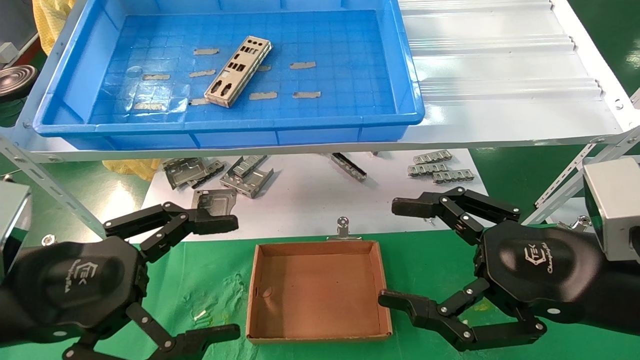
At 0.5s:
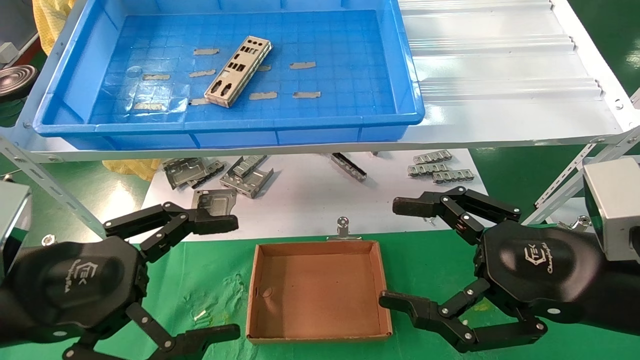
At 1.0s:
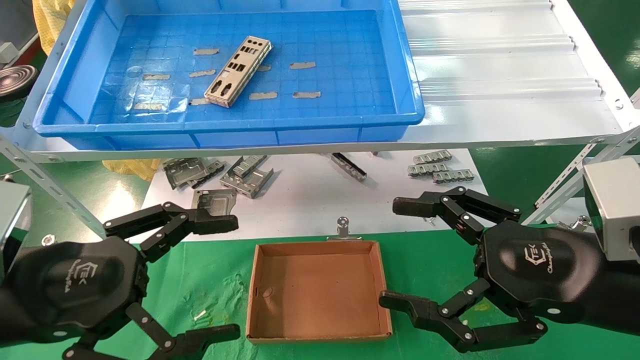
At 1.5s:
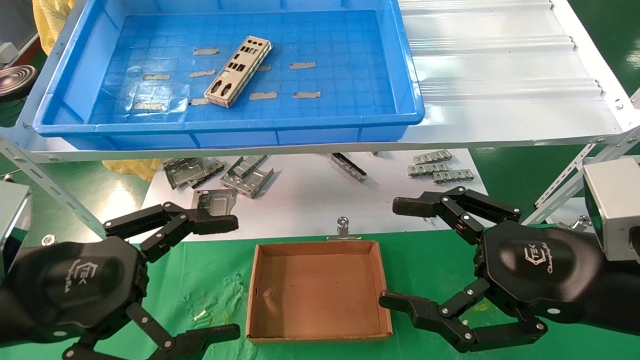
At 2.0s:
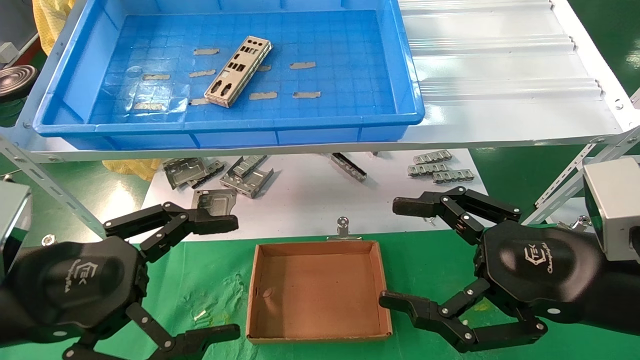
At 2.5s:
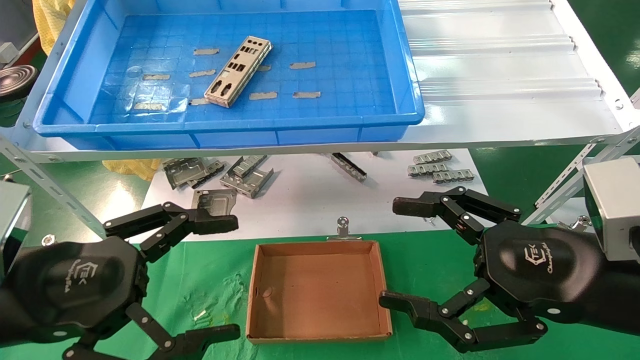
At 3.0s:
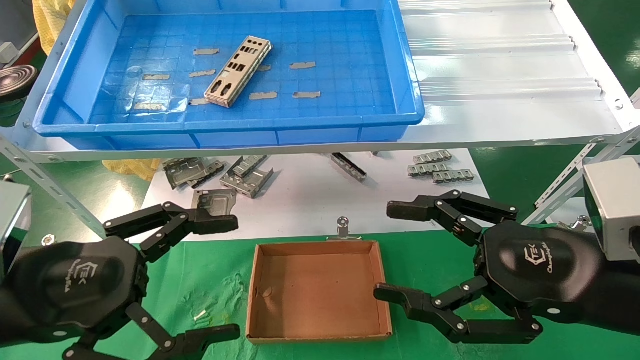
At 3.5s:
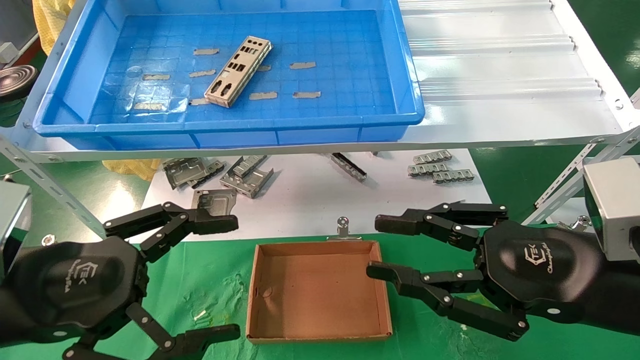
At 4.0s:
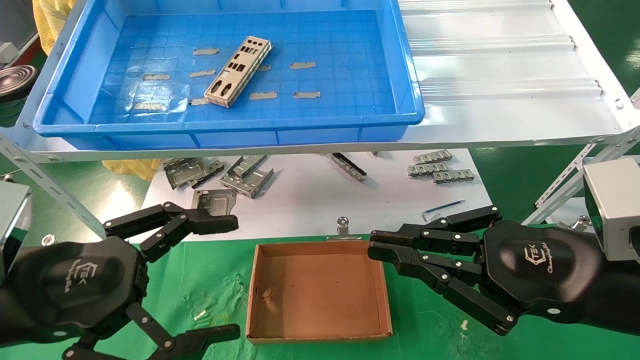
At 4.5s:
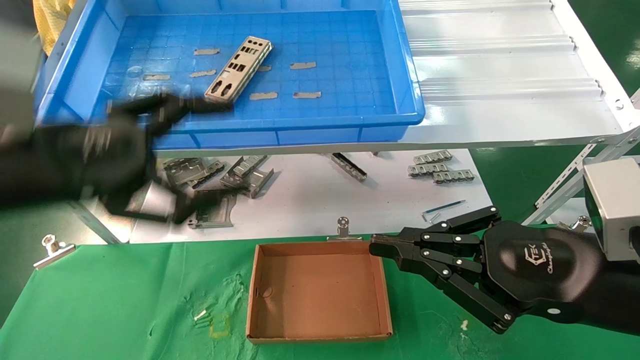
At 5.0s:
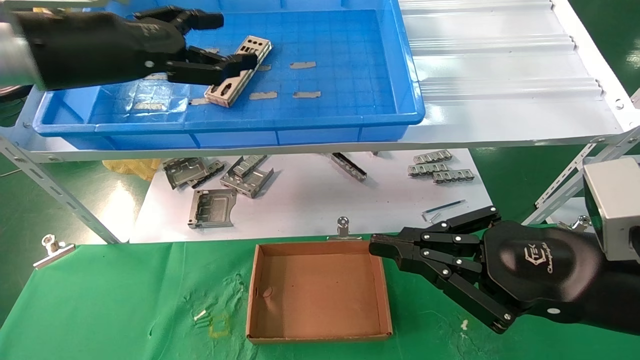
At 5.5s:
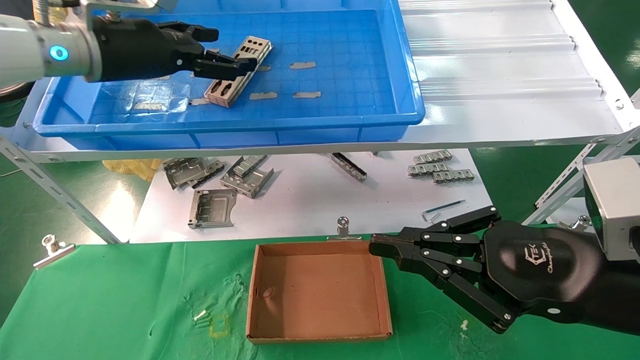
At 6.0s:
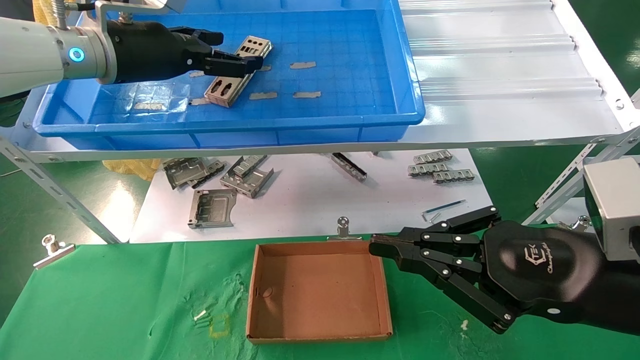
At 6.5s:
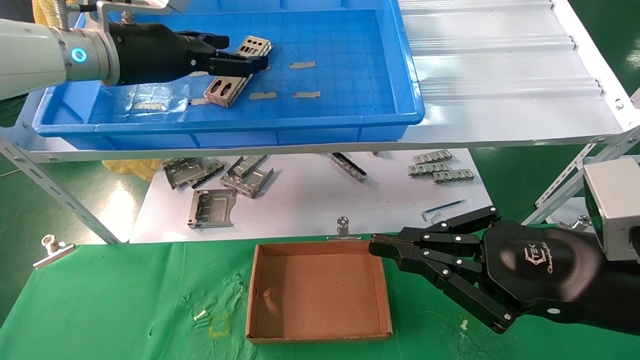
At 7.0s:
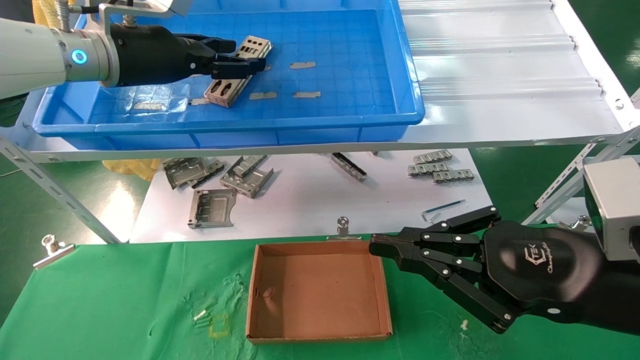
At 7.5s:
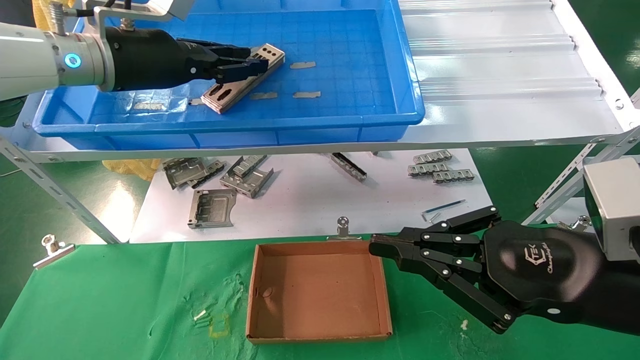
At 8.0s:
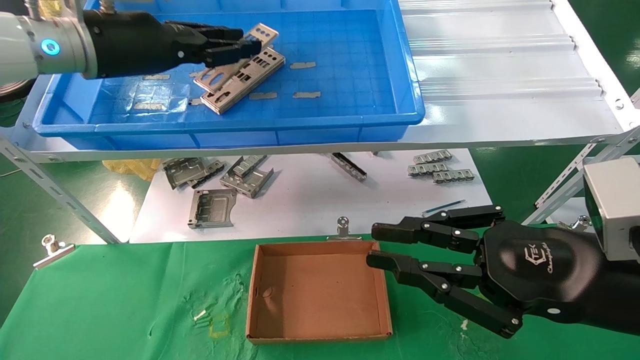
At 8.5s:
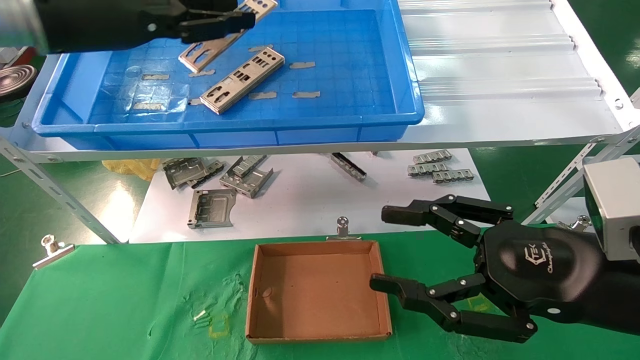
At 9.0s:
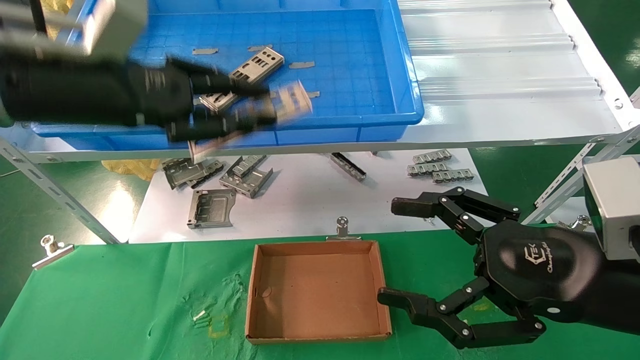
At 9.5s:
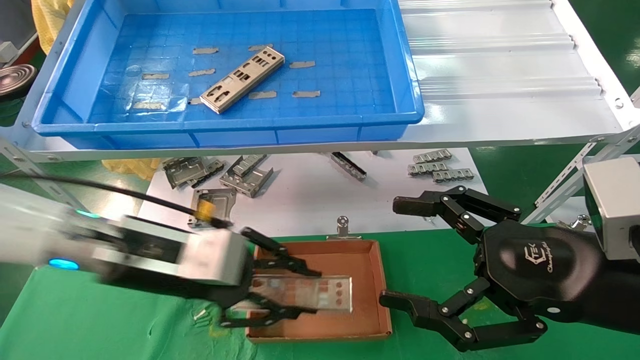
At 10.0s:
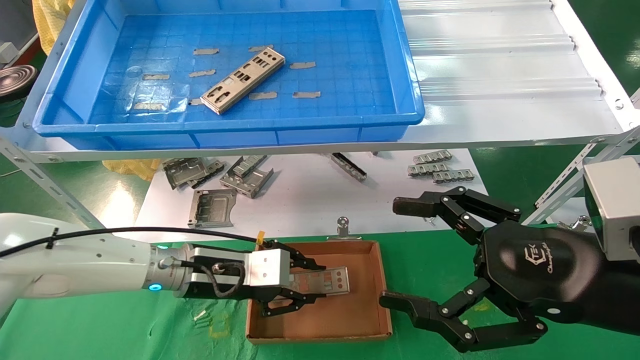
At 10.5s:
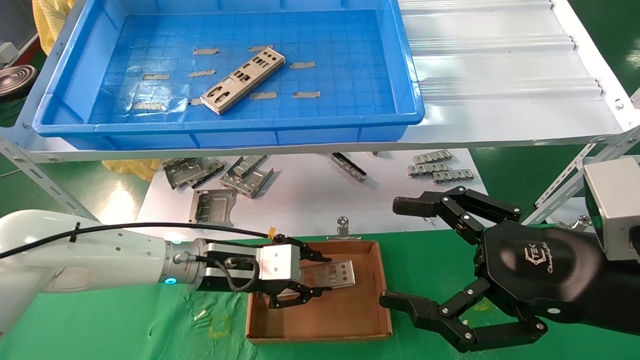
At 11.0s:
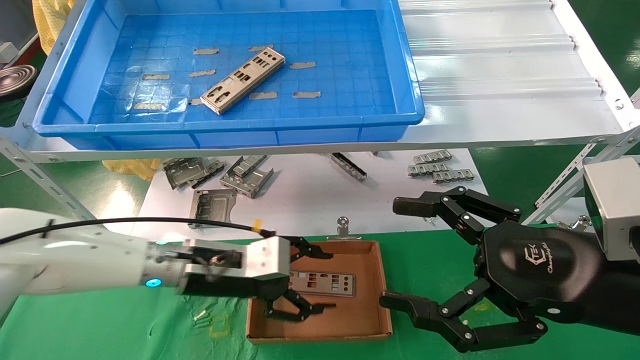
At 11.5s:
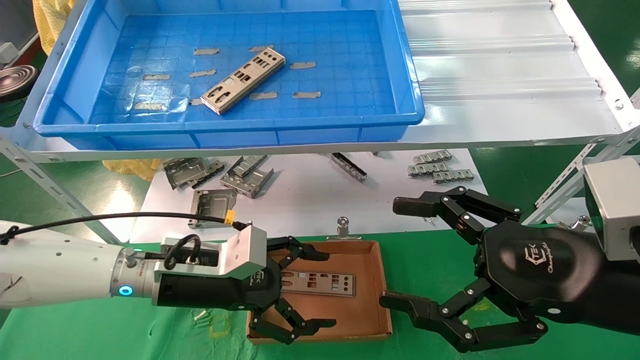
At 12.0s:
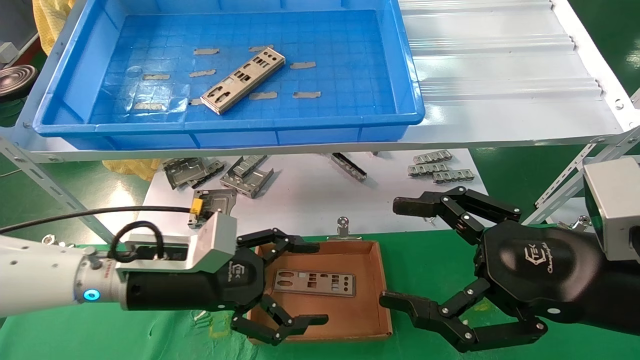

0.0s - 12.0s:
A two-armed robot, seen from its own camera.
Task of the whole recording: pick up the parts on the tray and put them in the cardboard box.
Step, 4.5s - 7.0s: Pick up the IO bracket from the container box.
Step, 7.5s - 10.5s: Place the IO bracket into the ingredient slot.
0.0s - 2.0s: Both grippers stay put.
2.0s - 4.0s: The right gripper closes.
4.0s - 6.0s: The left gripper is displaced forward and upward by some 30 cm.
6.0s - 8.0s: The left gripper closes up.
8.0s - 10.0s: The right gripper opens; the left gripper shifts some 30 cm downward.
10.0s - 12.0s: The left gripper shifts approximately 5 cm backward, and opens.

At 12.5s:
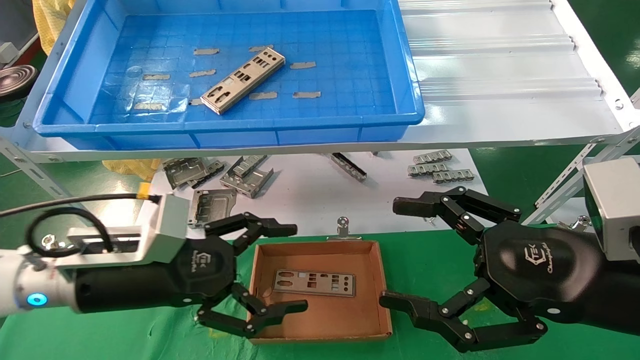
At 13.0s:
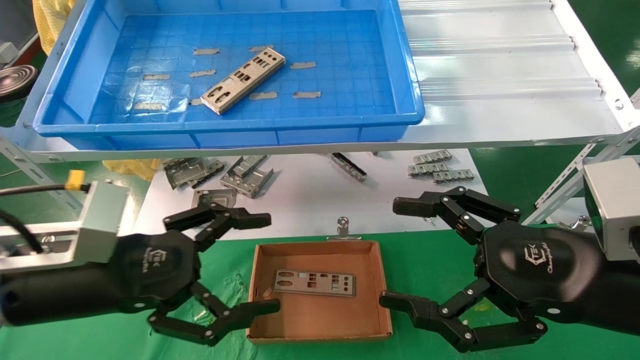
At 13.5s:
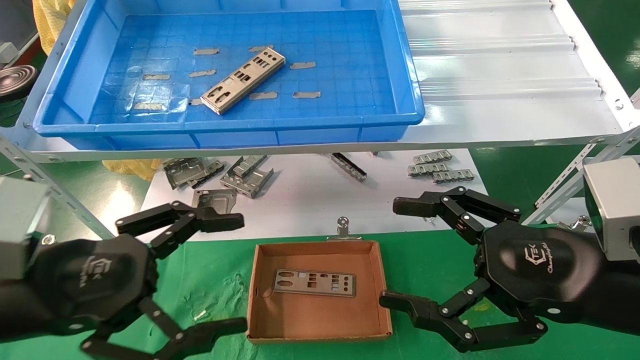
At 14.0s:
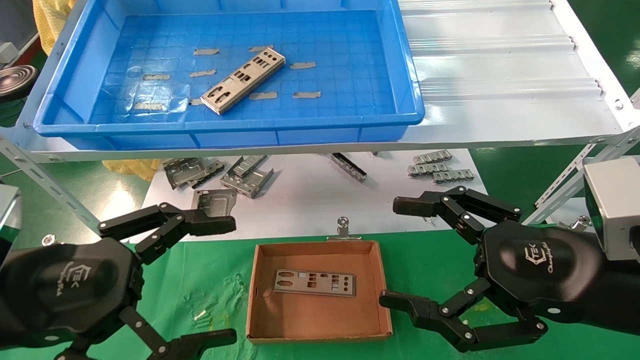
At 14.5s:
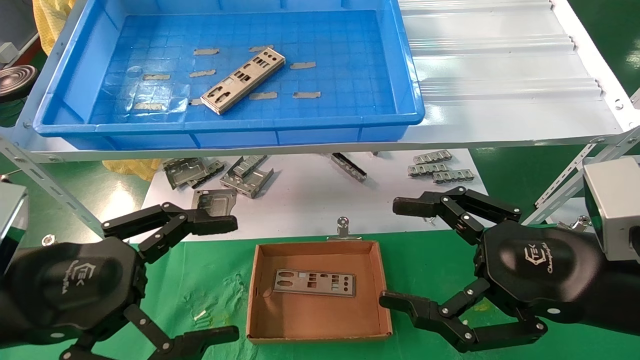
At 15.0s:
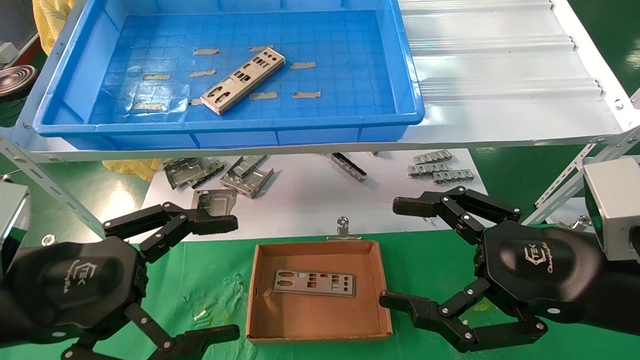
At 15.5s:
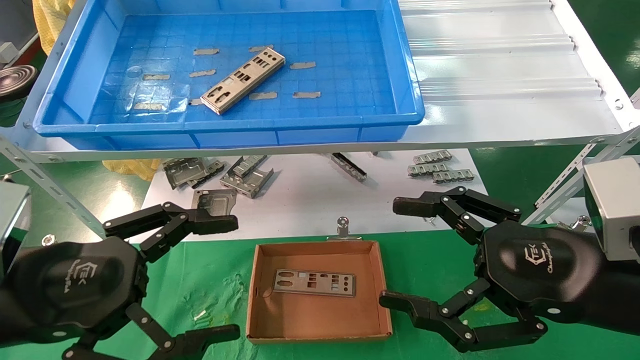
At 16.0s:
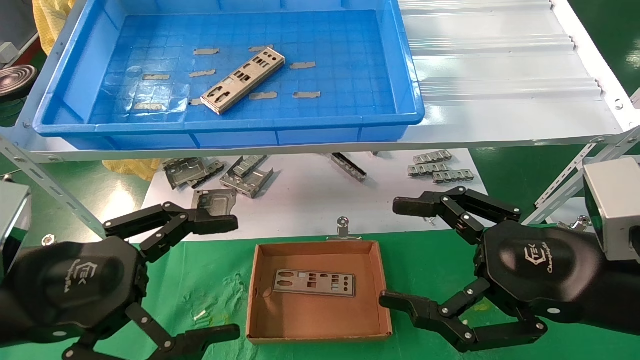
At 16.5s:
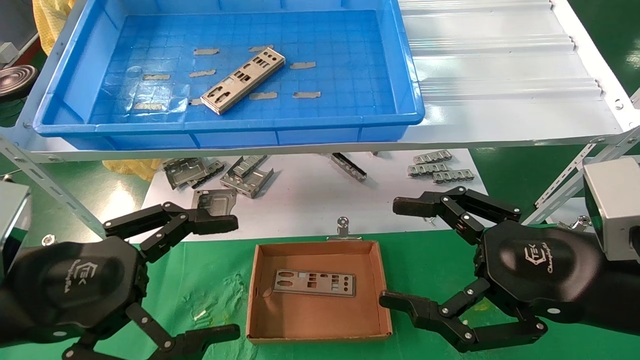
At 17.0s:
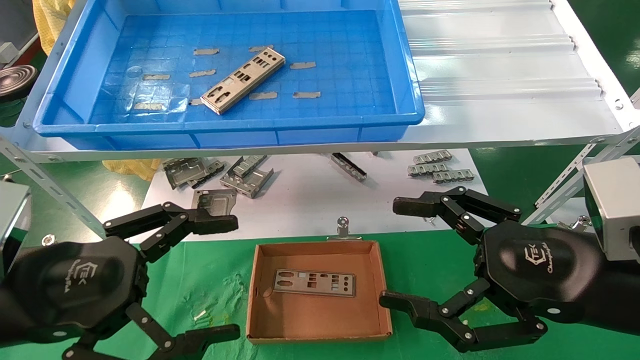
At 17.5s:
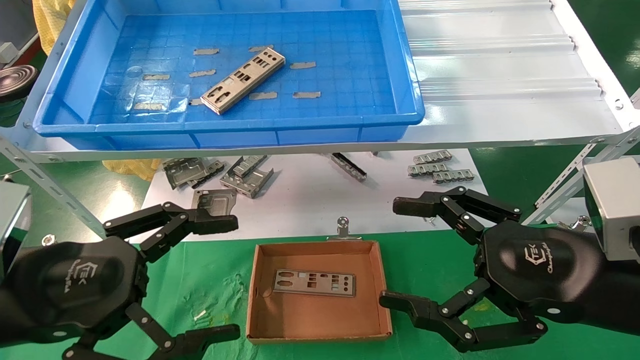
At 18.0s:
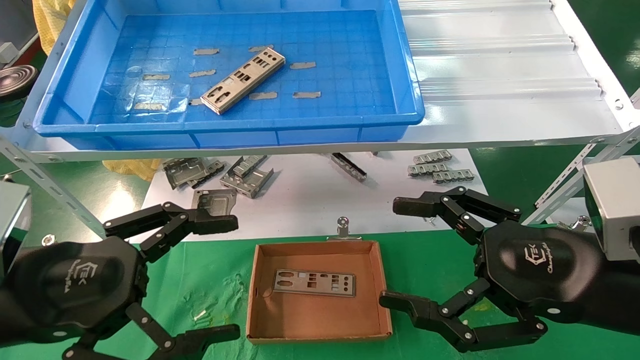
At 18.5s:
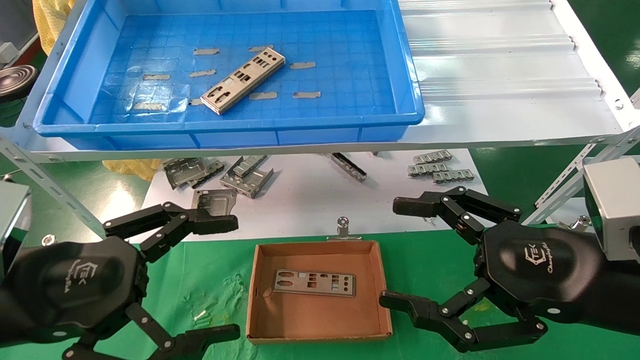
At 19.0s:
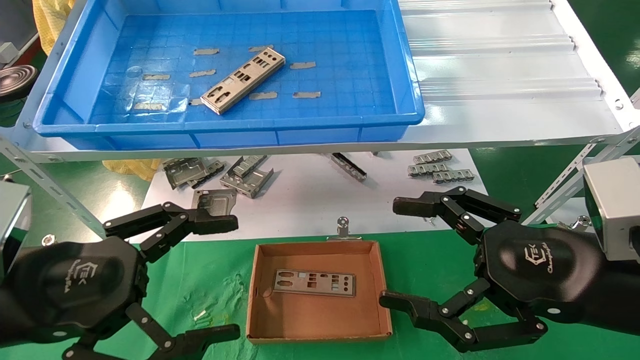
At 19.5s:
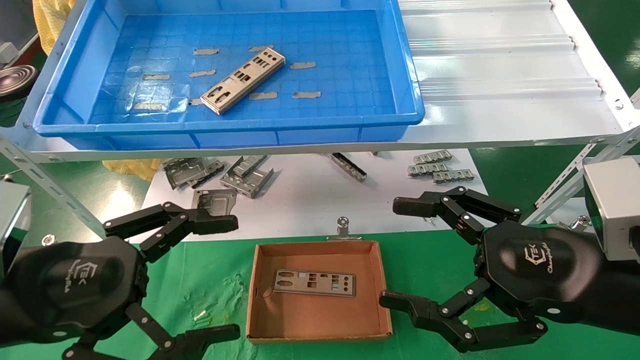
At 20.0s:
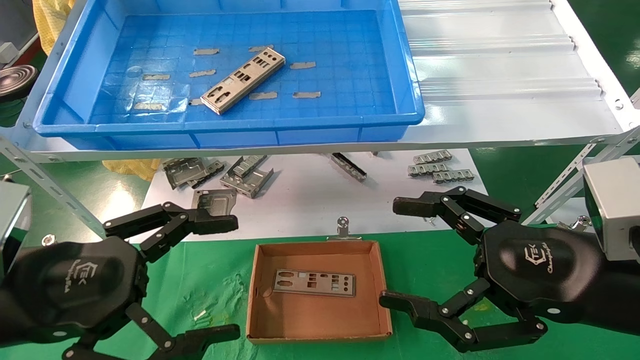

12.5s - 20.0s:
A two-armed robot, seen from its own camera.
Task of the whole recording: pick up the parts on the tray and put them in the cardboard box.
12.5s - 14.5s: The left gripper goes approximately 10 cm backward and to the left.
14.5s - 20.0s: Both grippers stay about where they are.
